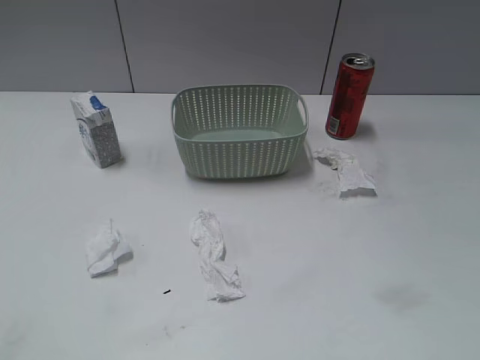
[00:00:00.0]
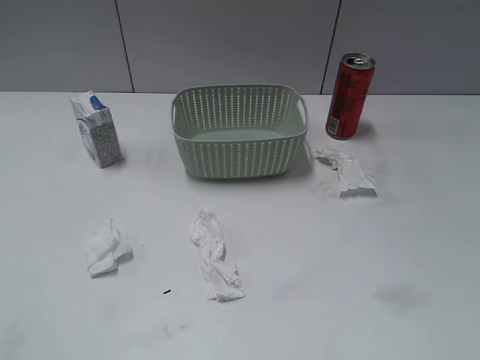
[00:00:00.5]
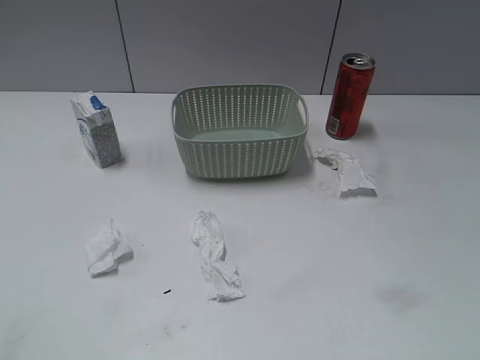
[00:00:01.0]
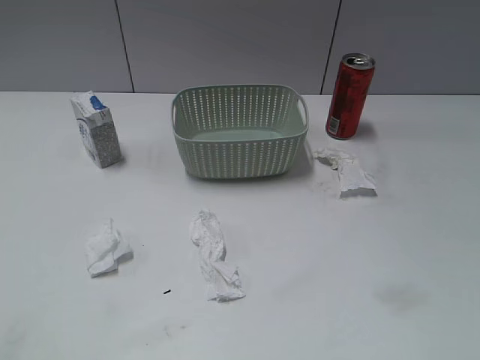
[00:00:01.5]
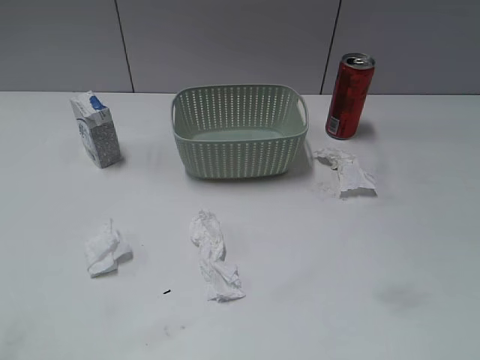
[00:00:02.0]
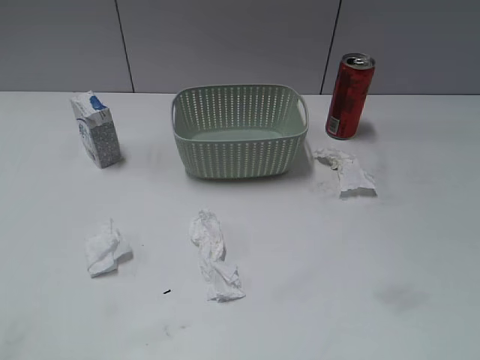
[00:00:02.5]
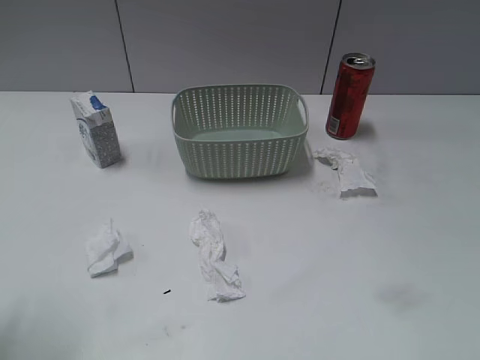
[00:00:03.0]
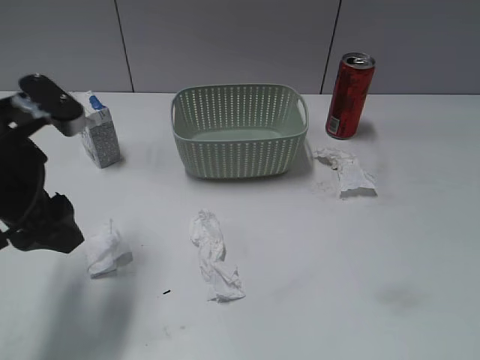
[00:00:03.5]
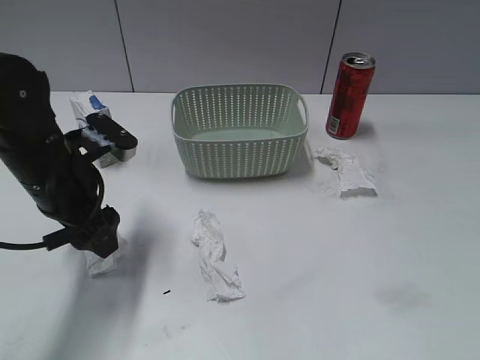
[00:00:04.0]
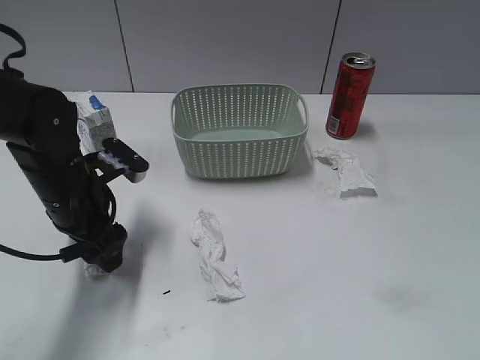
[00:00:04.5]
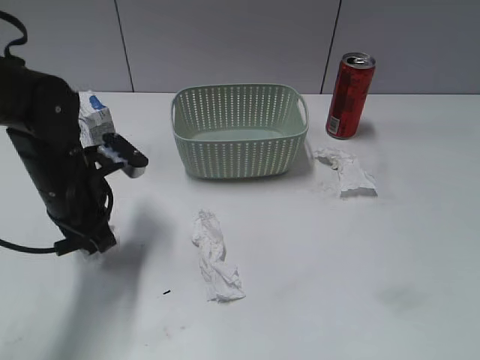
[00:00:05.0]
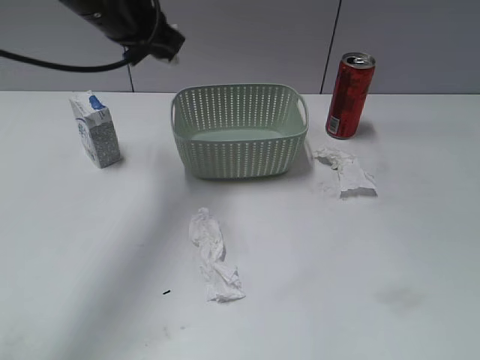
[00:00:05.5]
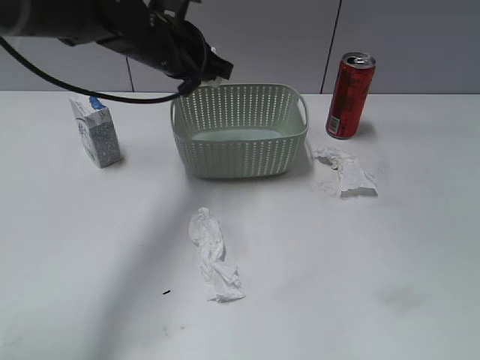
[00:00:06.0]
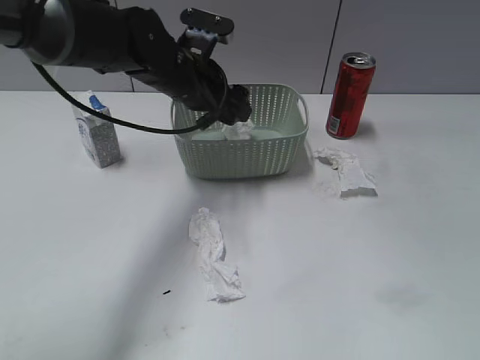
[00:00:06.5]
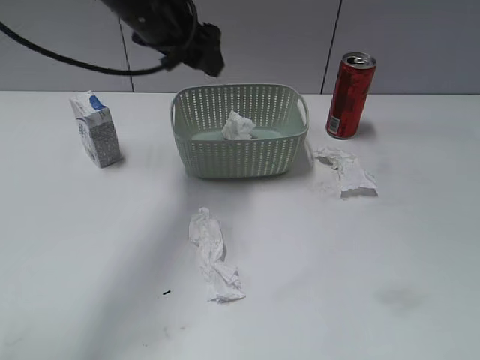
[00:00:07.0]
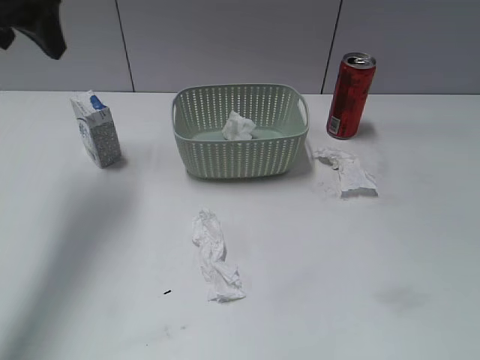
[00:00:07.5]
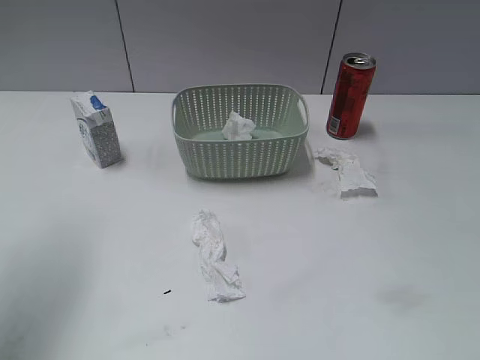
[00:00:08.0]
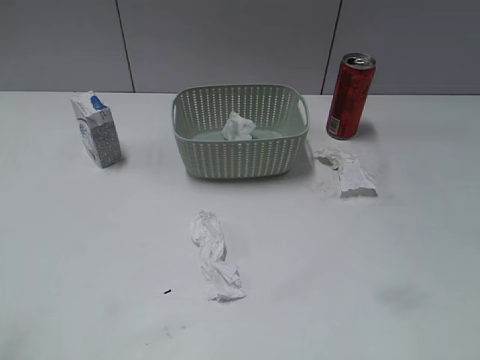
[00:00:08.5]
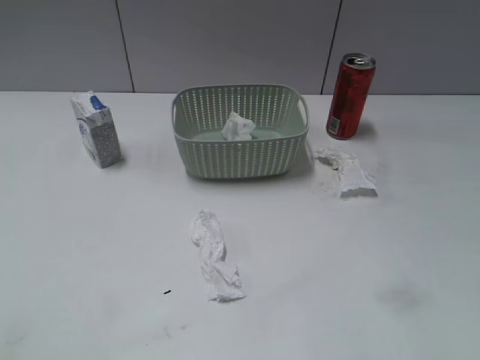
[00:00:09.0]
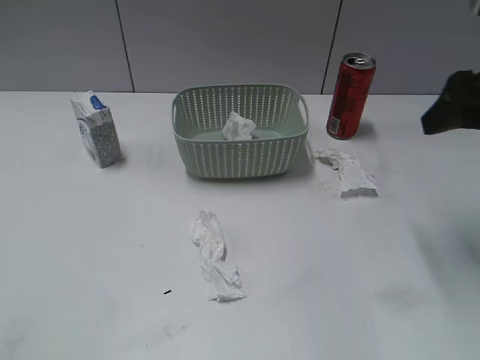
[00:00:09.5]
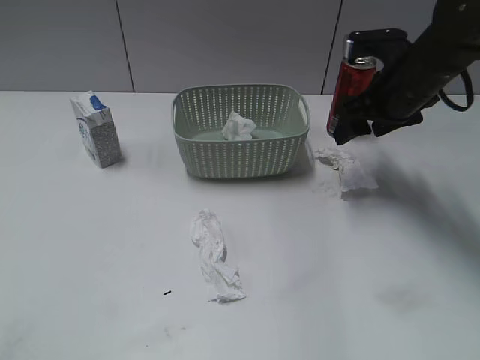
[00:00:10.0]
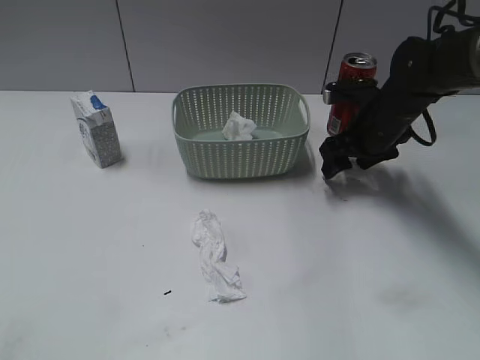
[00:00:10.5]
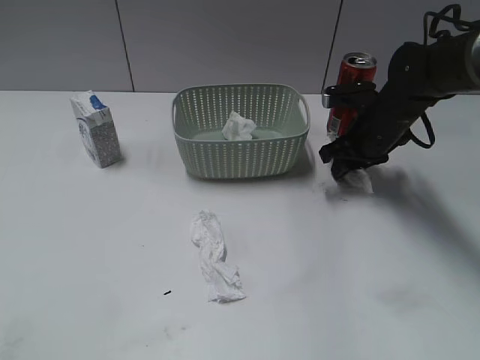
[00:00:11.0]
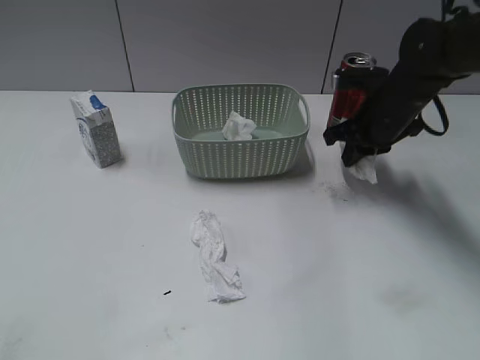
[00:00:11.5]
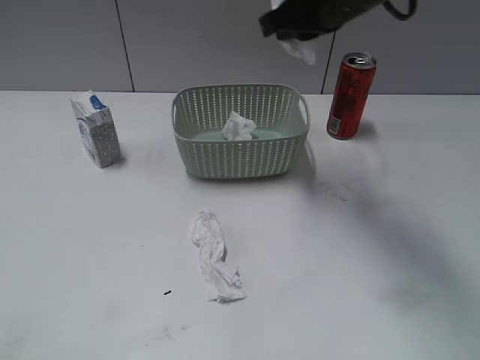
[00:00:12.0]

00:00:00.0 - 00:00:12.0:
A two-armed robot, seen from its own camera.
Step, 00:00:02.0 - 00:00:04.5: Grasp the waste paper with left gripper.
Step, 00:00:05.0 - 00:00:06.5: Place the waste paper in the basket with left gripper.
Step, 00:00:07.0 - 00:00:11.5: Grasp the waste paper with right gripper.
00:00:02.0 - 00:00:04.0: The left gripper travels forward, to the right and downward by roughly 35 cm.
00:00:04.0 - 00:00:06.0: The left gripper is displaced forward, to the right and upward by approximately 20 cm, and closes.
00:00:06.0 - 00:00:08.0: The left gripper goes some 30 cm to the left, backward and upward, and opens its fingers.
00:00:08.0 - 00:00:10.0: The right gripper is displaced forward by roughly 40 cm. Meanwhile the left gripper shifts about 25 cm backward.
00:00:10.0 - 00:00:12.0: The right gripper moves upward and to the left, some 15 cm, and closes its fingers.

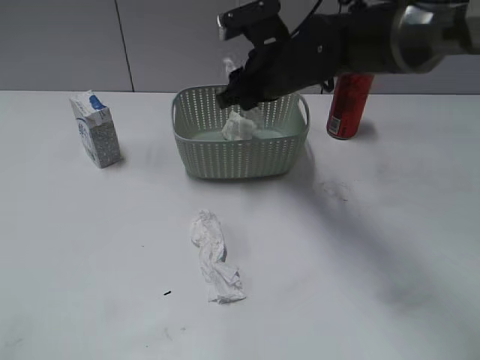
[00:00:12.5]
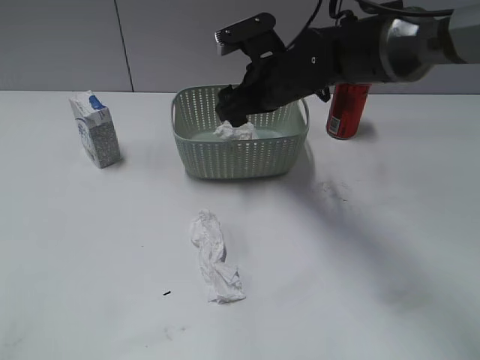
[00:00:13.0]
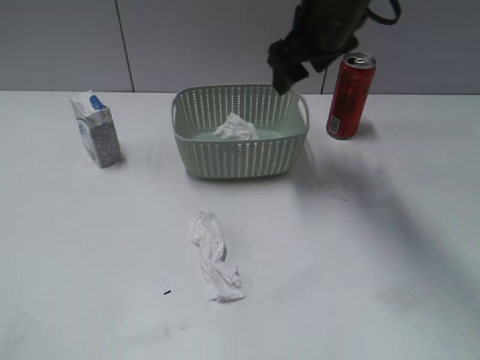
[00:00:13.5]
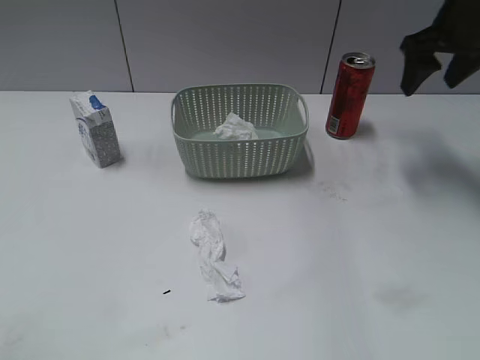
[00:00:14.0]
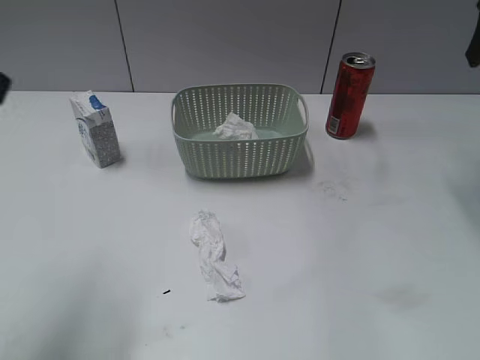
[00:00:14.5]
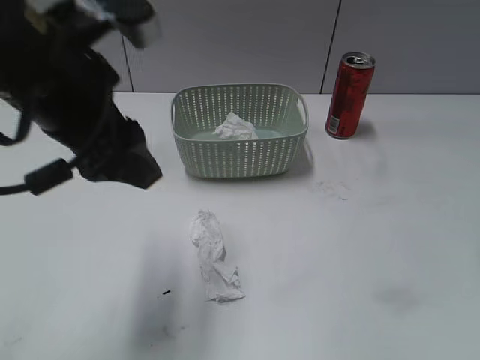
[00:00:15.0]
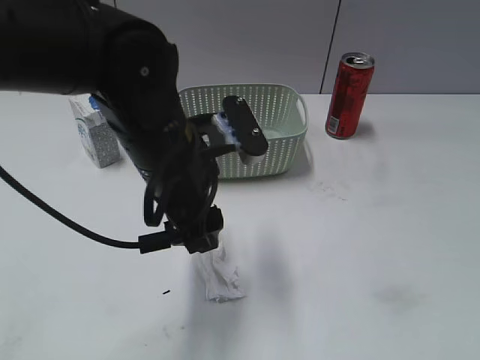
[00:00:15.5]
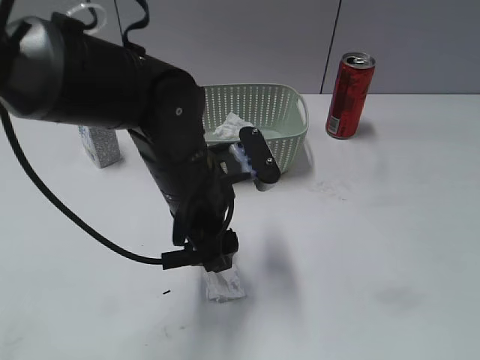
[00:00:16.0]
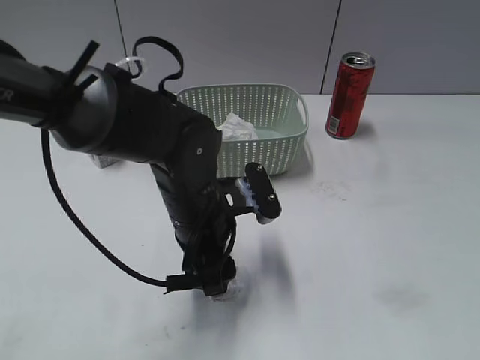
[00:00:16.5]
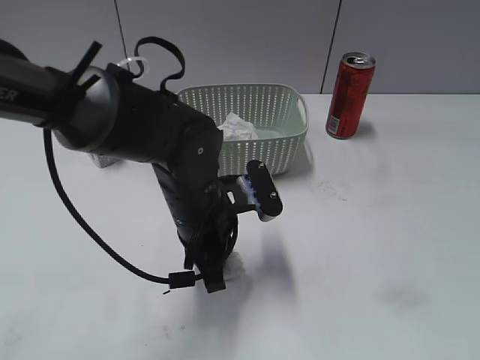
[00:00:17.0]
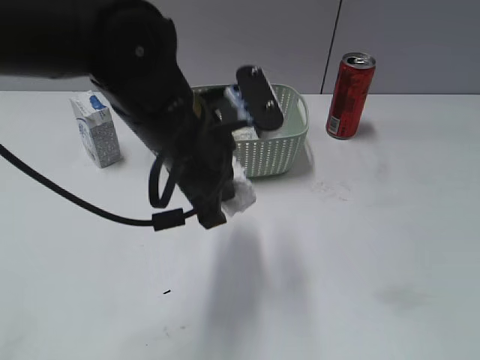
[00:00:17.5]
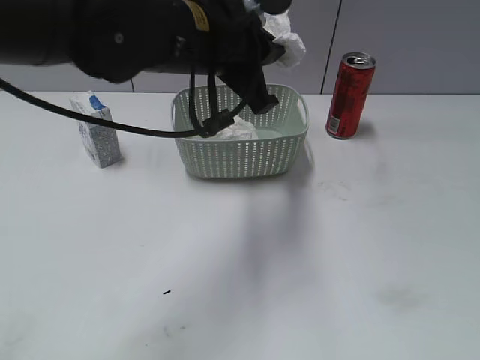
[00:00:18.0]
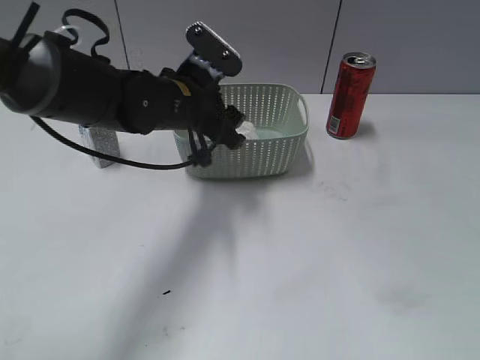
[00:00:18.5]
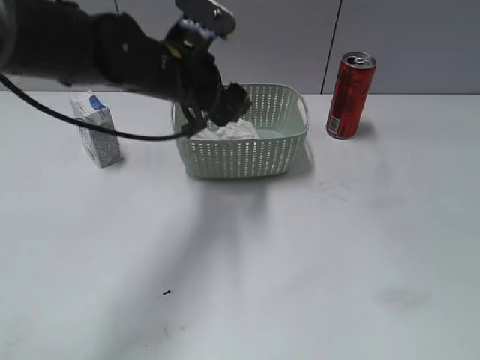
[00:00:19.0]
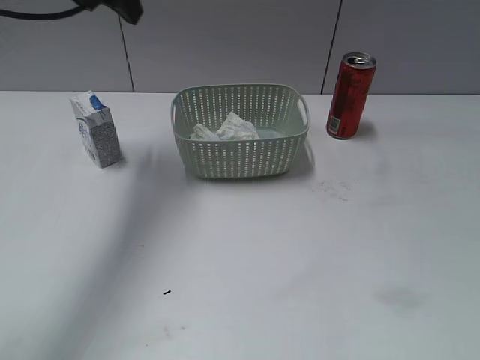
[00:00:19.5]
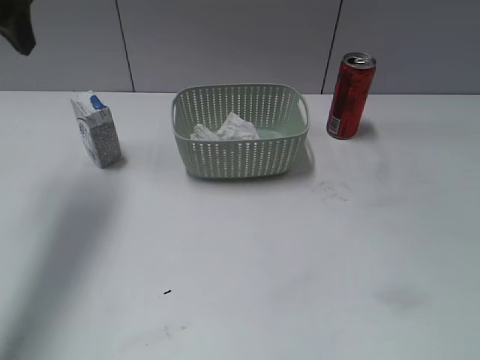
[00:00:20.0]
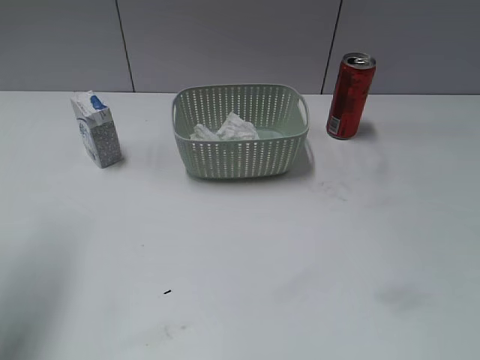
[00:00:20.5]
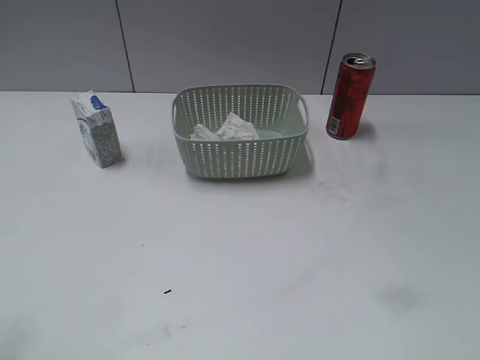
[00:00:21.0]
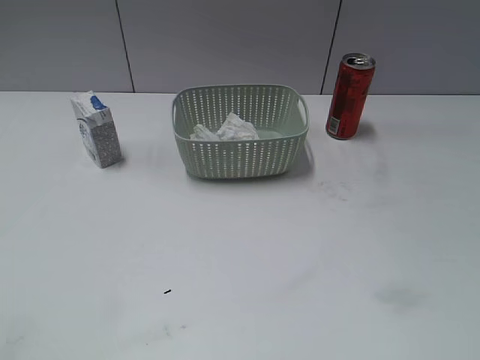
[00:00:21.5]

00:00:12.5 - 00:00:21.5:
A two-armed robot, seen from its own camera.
Step, 00:00:13.5 - 00:00:17.0: Grasp the waste paper with left gripper.
Step, 00:00:17.5 - 00:00:18.5: Place the waste paper in the basket with left gripper.
00:00:12.5 - 00:00:14.5: The right gripper travels to the right and upward by about 30 cm, while the left gripper is displaced forward, to the right and upward by some 20 cm.
00:00:14.5 - 00:00:17.0: The left gripper heads downward and to the right, covering about 30 cm, and closes. The right gripper goes roughly 35 cm backward.
00:00:17.0 - 00:00:19.5: The left gripper swings up and down, approximately 25 cm each way, with 2 reversals, and opens up.
00:00:19.5 - 00:00:21.5: The left gripper travels backward by about 40 cm.
